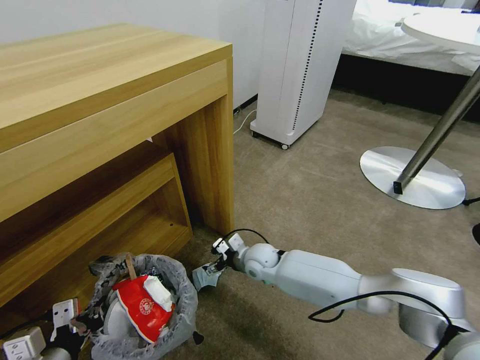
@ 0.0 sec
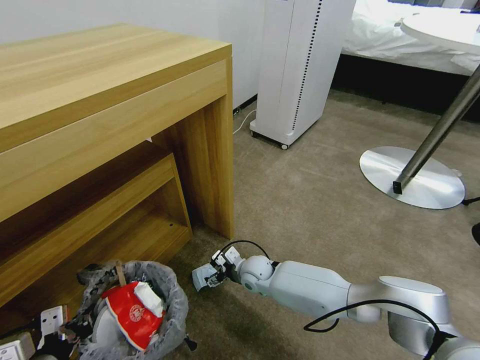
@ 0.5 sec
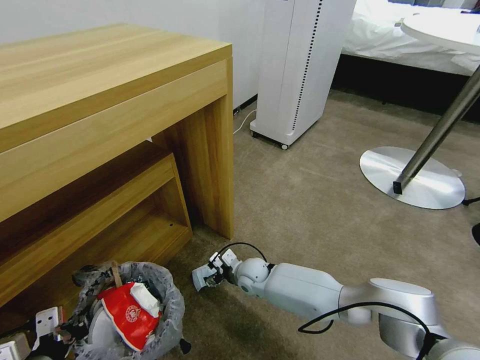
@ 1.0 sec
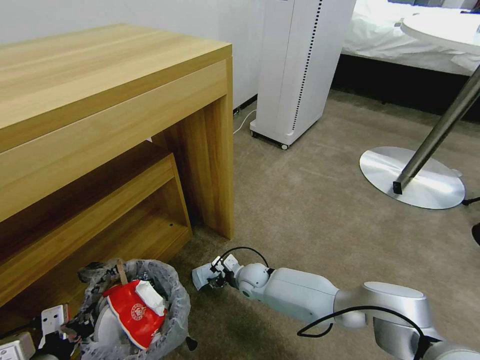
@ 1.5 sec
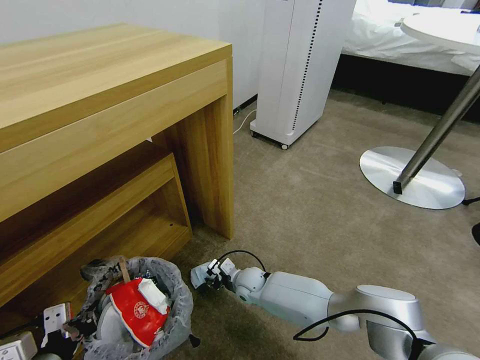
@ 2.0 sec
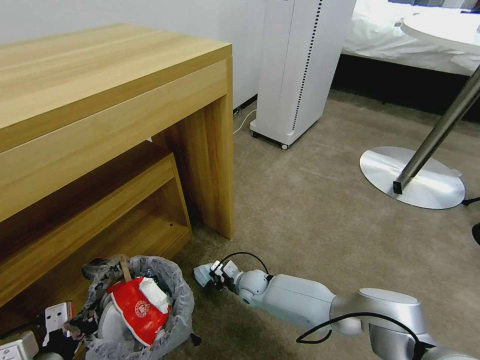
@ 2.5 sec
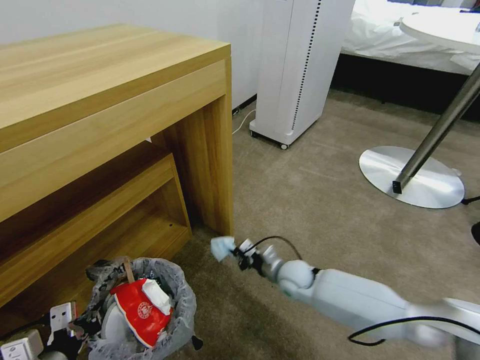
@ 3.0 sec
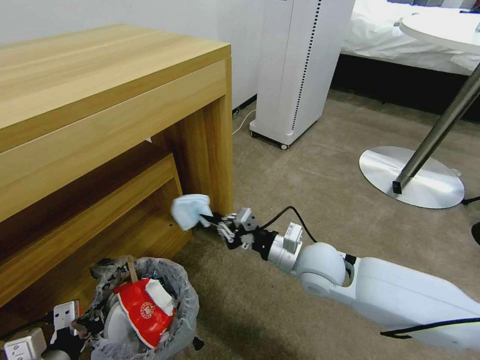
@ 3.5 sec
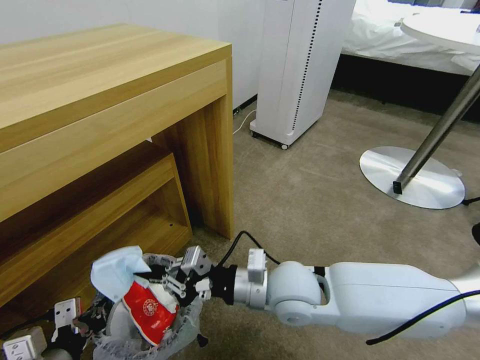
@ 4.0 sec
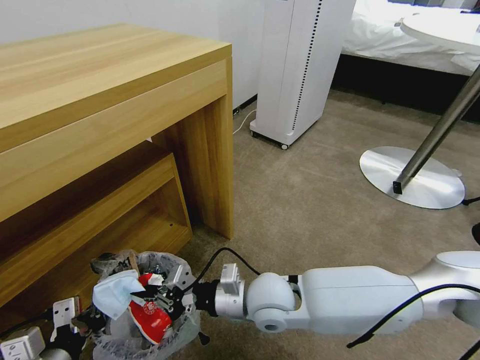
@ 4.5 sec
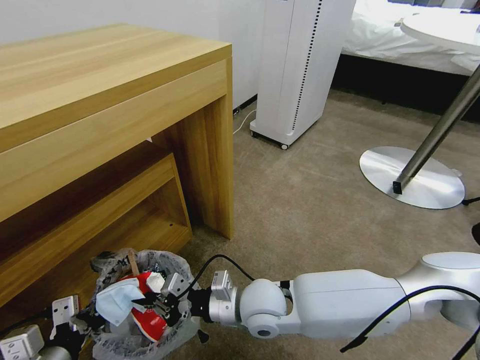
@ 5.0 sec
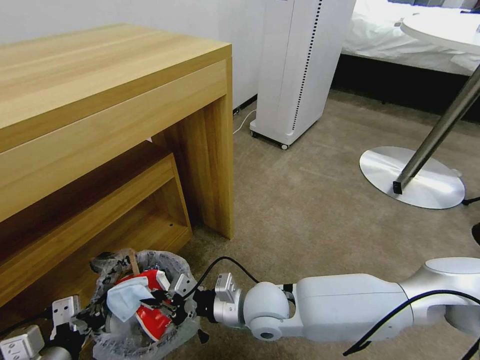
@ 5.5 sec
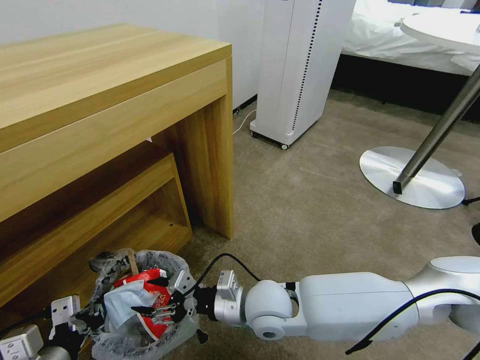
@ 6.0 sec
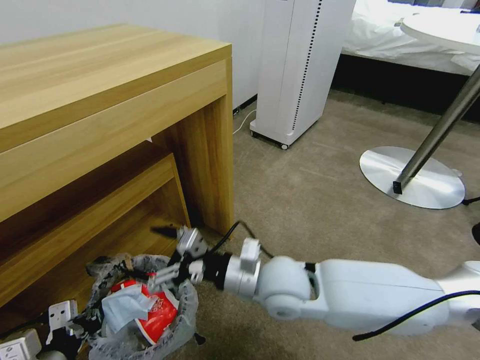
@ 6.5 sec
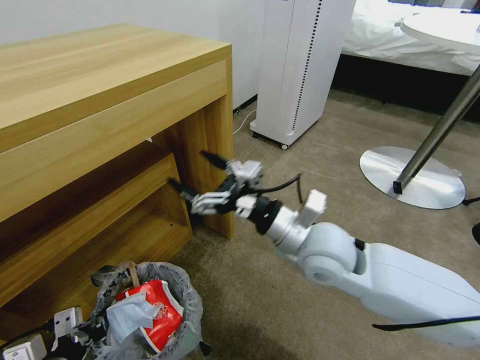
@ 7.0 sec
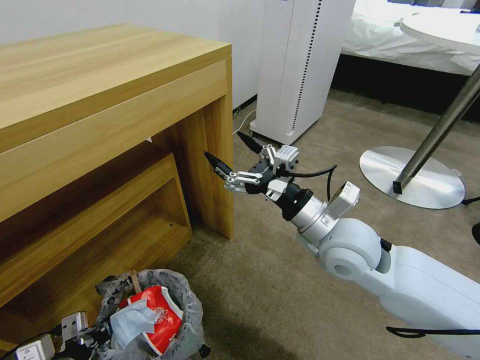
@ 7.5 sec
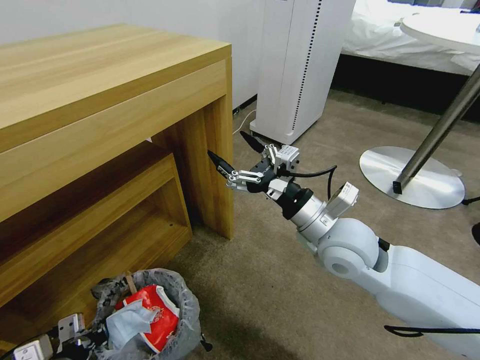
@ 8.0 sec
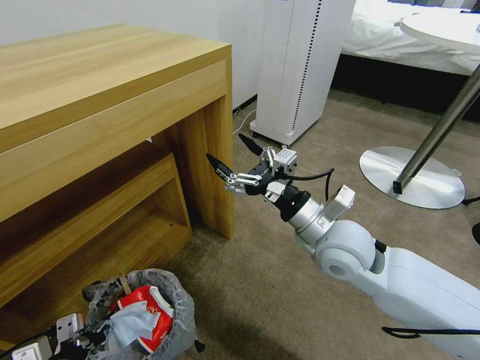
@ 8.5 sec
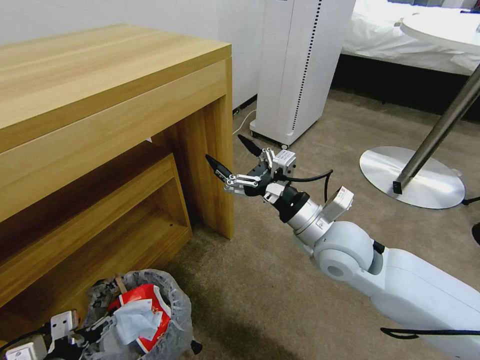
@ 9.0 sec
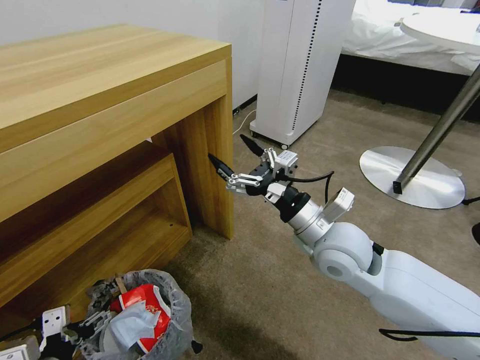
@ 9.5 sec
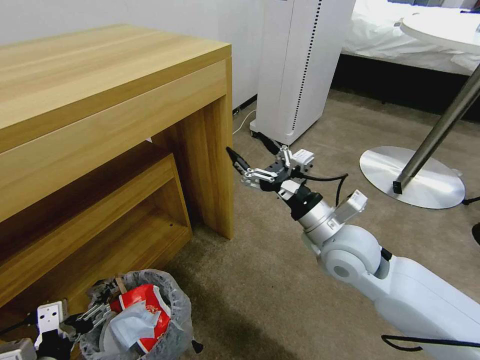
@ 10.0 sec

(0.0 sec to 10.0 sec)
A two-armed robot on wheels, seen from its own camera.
Task of the whole recording: Pick up the trash bin and place the garbage on the floor into it.
0.0 sec - 2.0 sec: The right gripper travels downward by about 10 cm, and closes.
2.0 sec - 4.0 sec: The right gripper goes about 30 cm upward and backward, and closes its fingers.
4.0 sec - 6.0 sec: The right gripper travels downward by approximately 5 cm, and opens up.
6.0 sec - 8.0 sec: The right gripper is displaced upward, to the right and forward by about 20 cm.
8.0 sec - 10.0 sec: The left gripper moves some 5 cm, and opens.

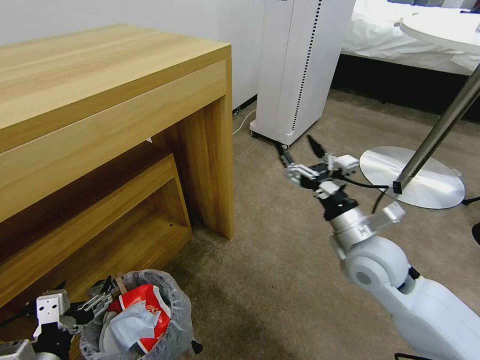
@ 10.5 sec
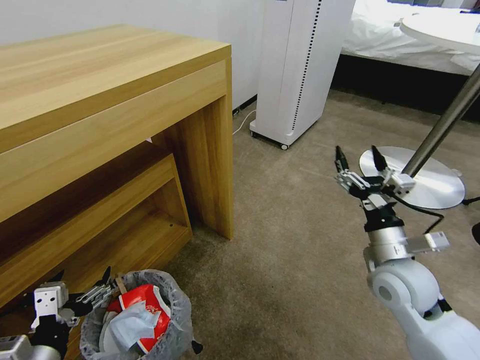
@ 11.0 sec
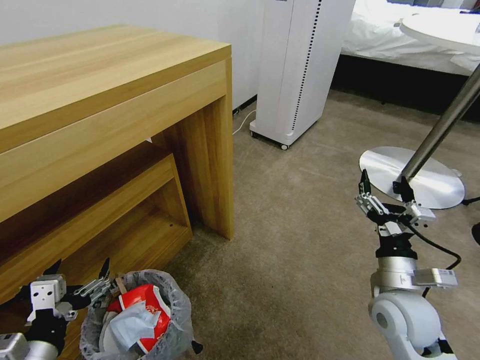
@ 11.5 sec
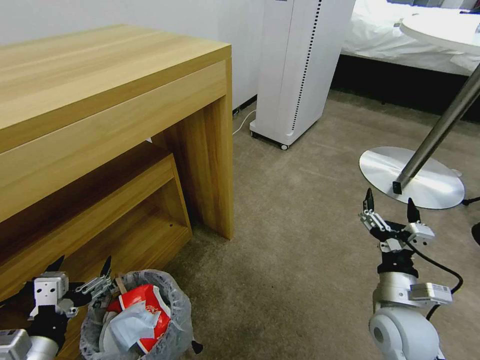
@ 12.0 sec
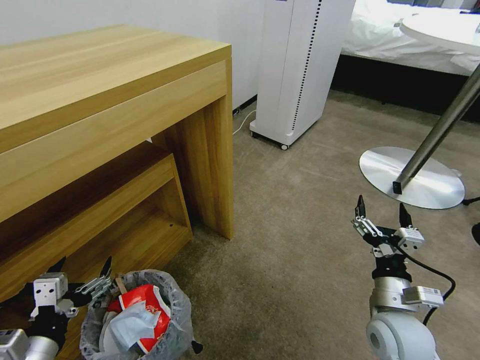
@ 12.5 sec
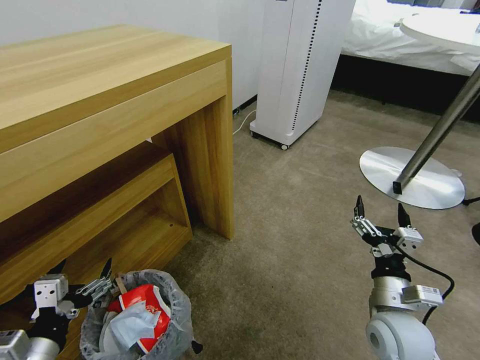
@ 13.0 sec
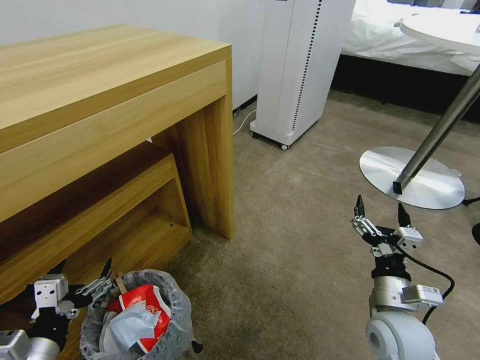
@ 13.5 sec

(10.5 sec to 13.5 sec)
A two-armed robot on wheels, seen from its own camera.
Task of the whole recording: Pick up the trash bin and place the garbage on the floor into it.
10.5 sec - 12.0 sec: The right gripper heads downward, backward and to the right, covering about 15 cm.
12.0 sec - 13.5 sec: Both grippers stay put.

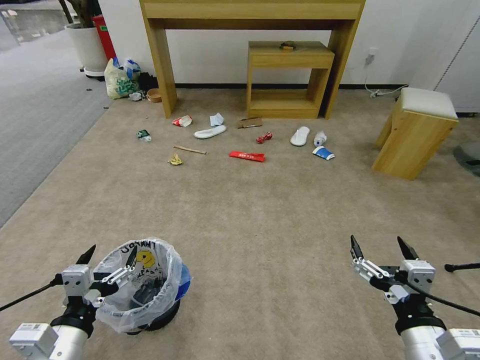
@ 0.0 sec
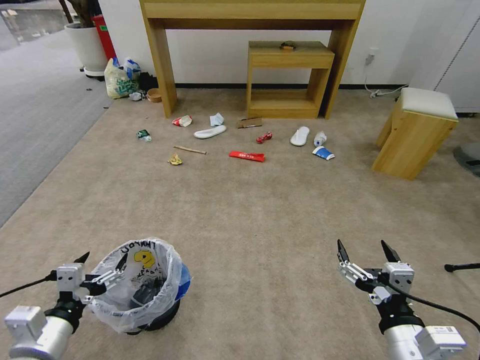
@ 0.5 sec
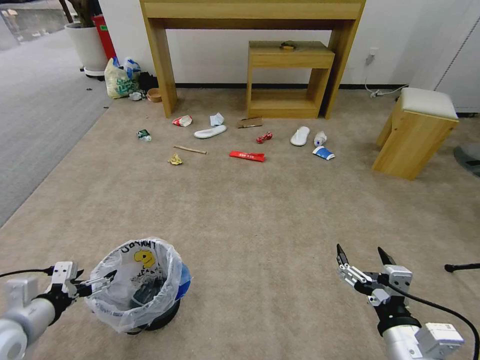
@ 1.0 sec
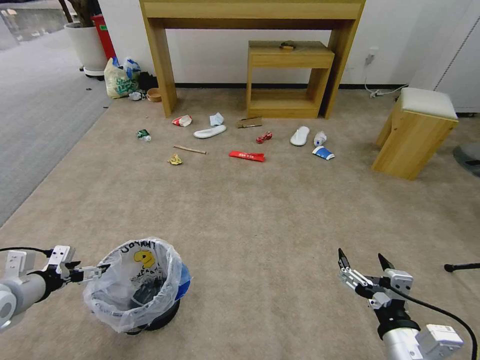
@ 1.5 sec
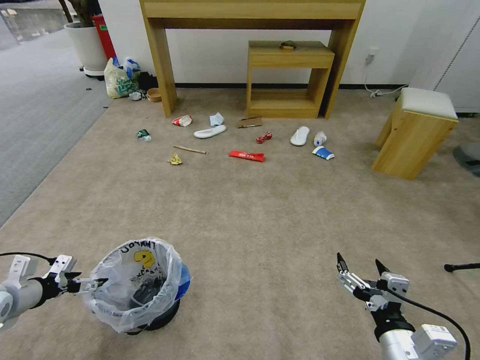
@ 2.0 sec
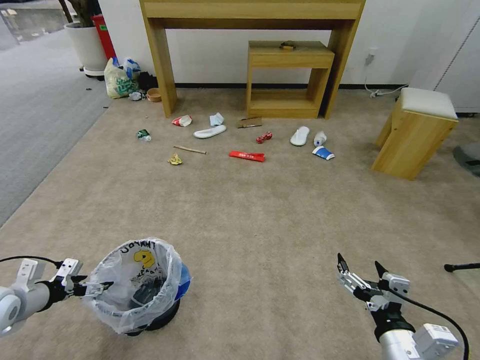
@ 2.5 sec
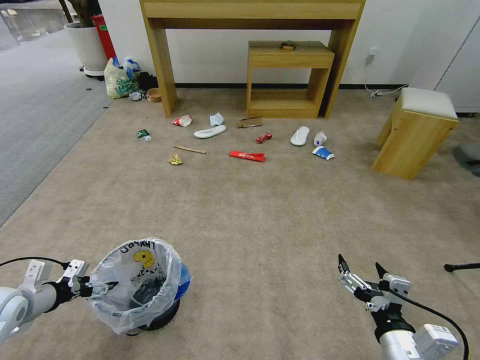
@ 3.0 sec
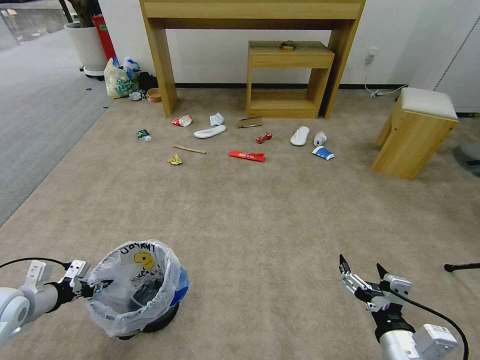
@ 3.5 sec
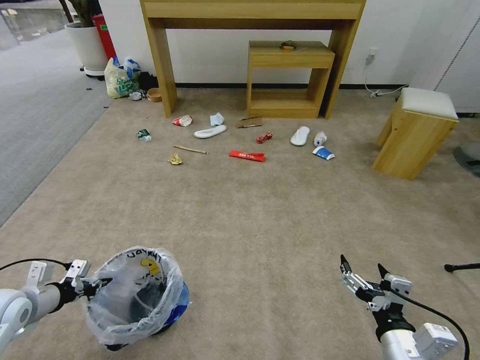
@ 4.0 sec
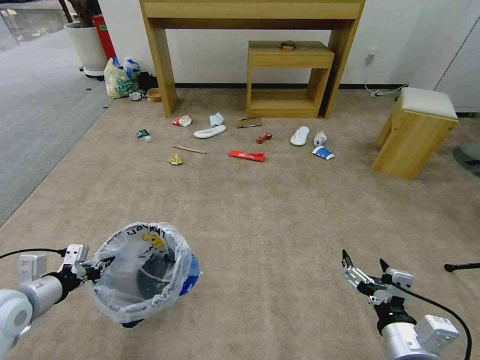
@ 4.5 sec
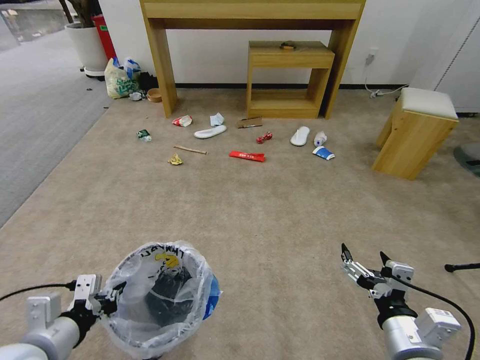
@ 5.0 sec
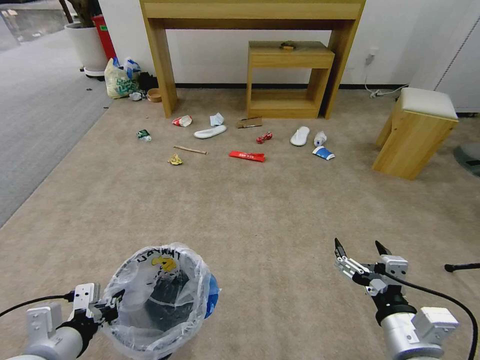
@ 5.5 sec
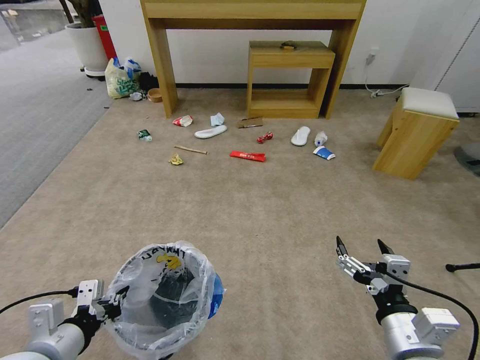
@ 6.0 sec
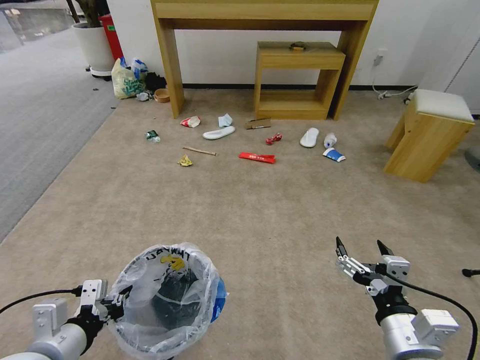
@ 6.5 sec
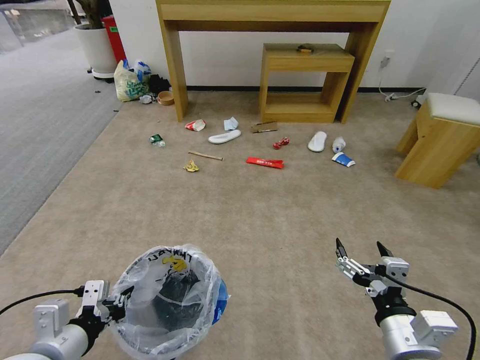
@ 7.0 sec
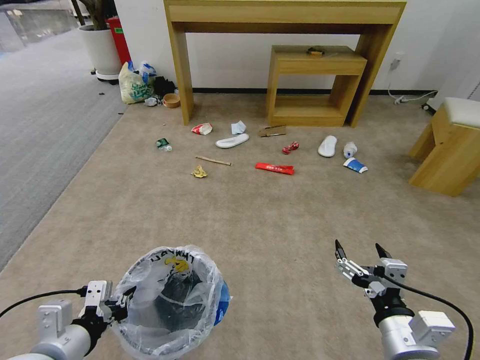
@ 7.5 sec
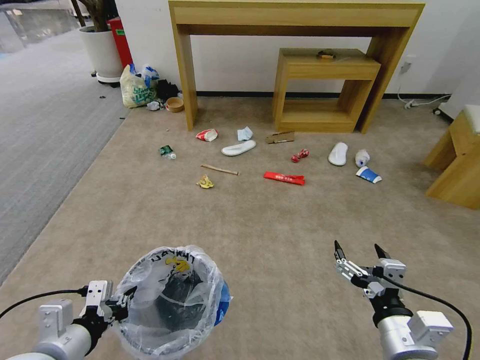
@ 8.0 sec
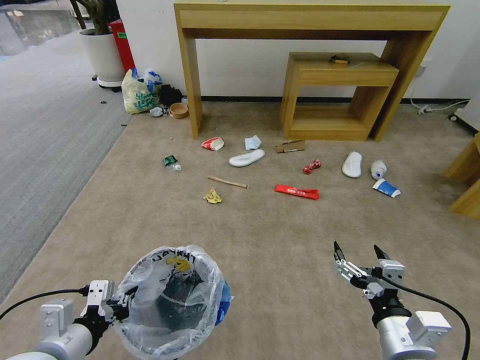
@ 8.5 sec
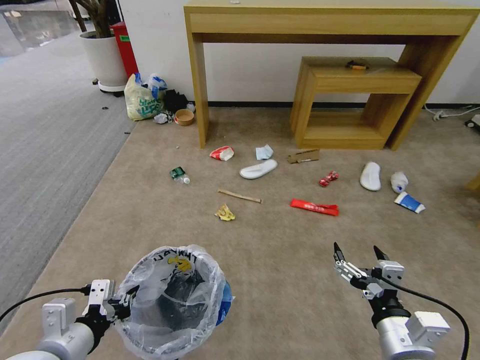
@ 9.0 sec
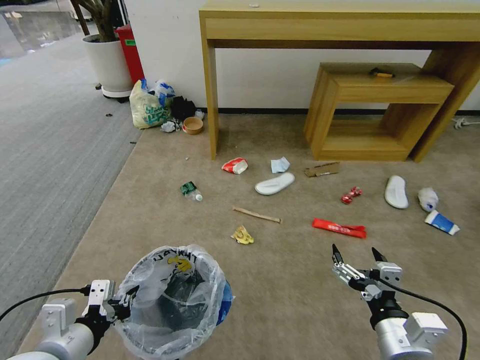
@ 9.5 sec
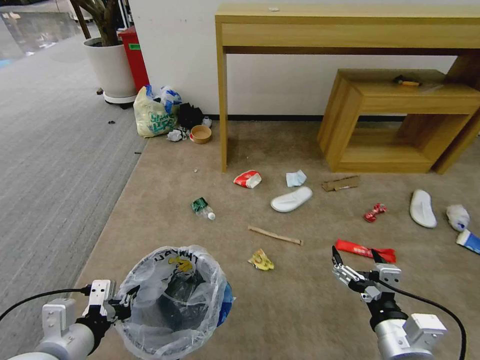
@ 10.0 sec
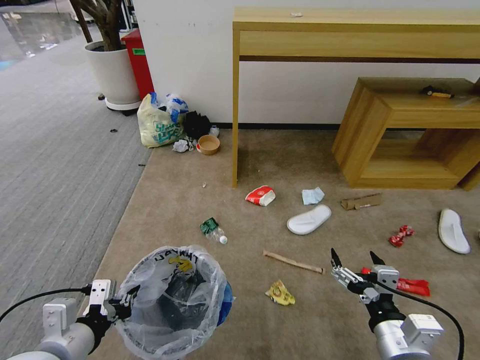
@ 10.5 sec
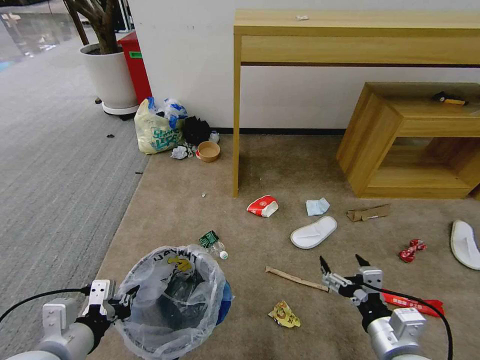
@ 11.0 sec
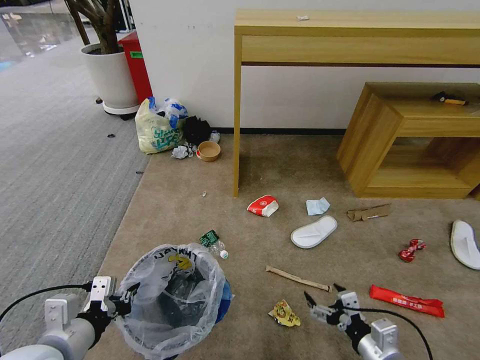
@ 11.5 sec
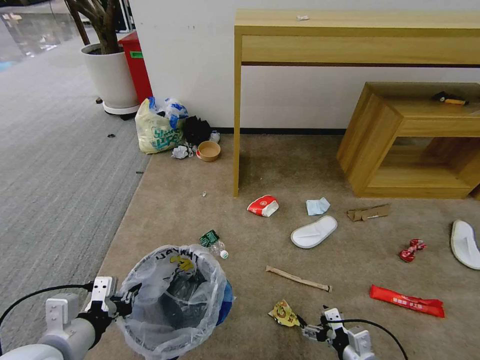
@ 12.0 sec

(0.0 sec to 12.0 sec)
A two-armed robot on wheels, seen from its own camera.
Task of the whole recording: Pick up the trash bin and place the garbage on the floor into it.
2.0 sec - 4.0 sec: The left gripper closes up.
4.0 sec - 6.0 sec: The left gripper is displaced to the right and backward by roughly 20 cm.
10.0 sec - 12.0 sec: The right gripper travels downward by about 15 cm.
